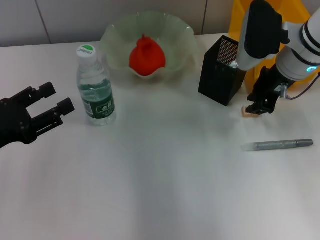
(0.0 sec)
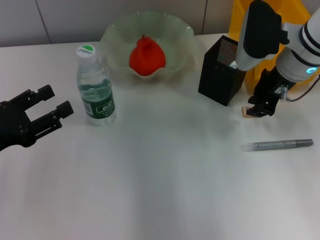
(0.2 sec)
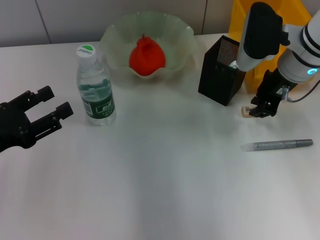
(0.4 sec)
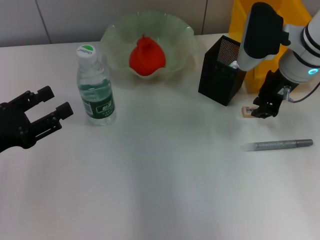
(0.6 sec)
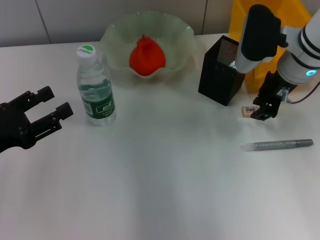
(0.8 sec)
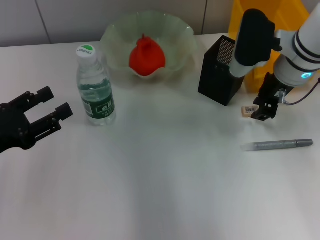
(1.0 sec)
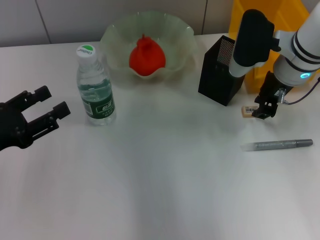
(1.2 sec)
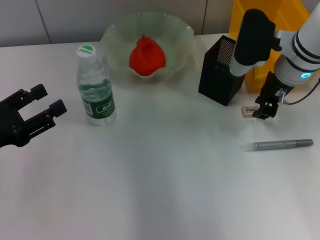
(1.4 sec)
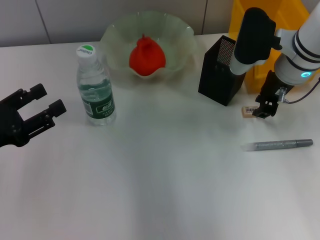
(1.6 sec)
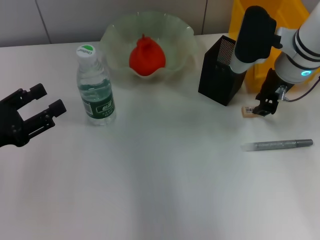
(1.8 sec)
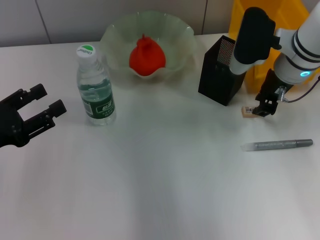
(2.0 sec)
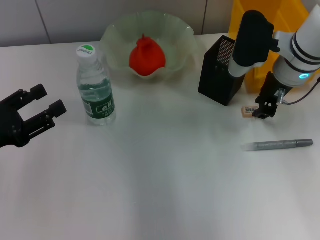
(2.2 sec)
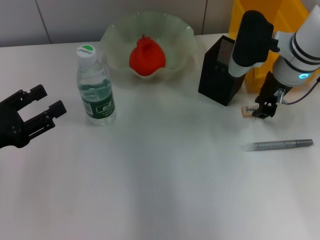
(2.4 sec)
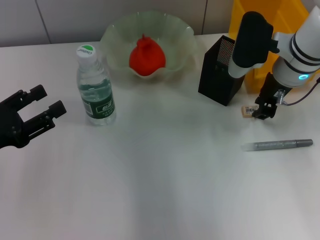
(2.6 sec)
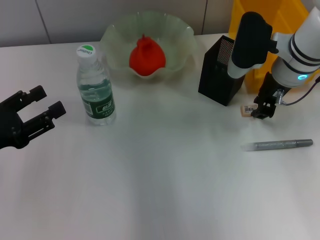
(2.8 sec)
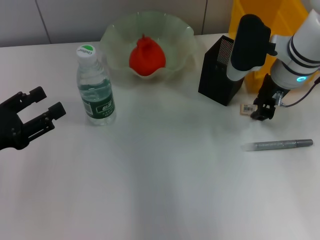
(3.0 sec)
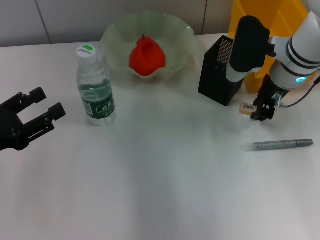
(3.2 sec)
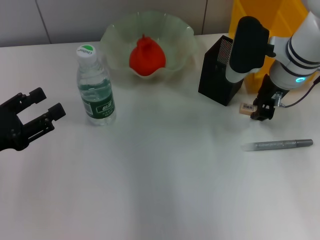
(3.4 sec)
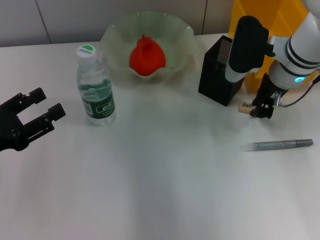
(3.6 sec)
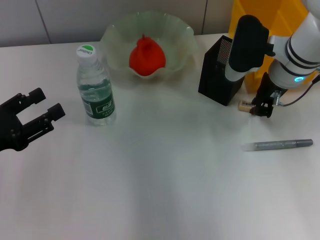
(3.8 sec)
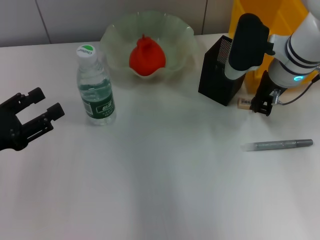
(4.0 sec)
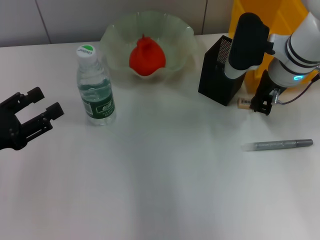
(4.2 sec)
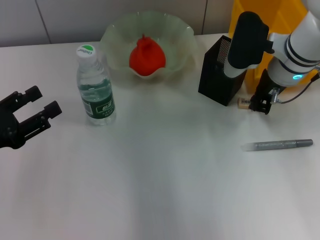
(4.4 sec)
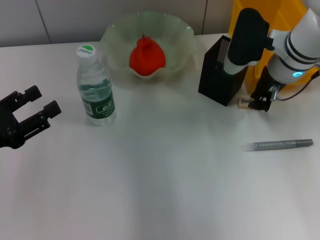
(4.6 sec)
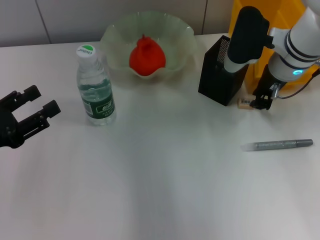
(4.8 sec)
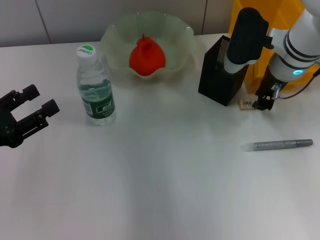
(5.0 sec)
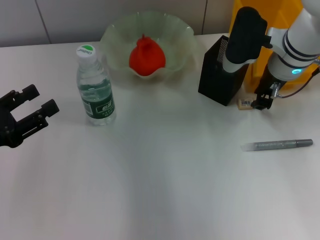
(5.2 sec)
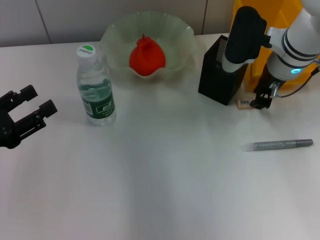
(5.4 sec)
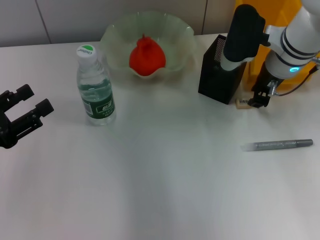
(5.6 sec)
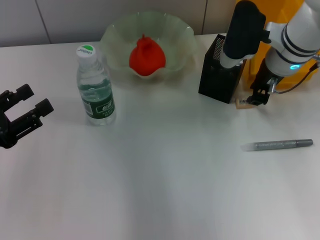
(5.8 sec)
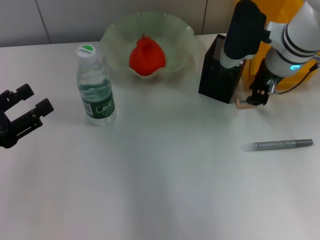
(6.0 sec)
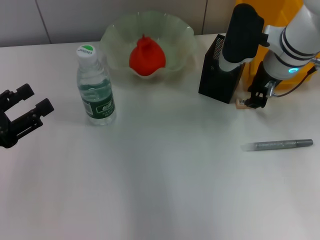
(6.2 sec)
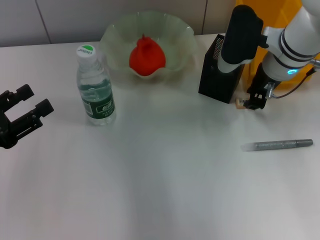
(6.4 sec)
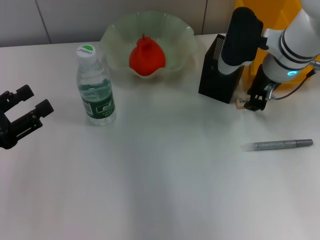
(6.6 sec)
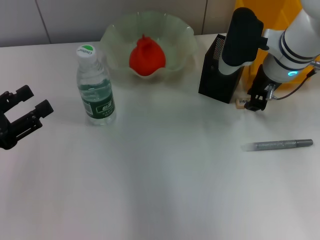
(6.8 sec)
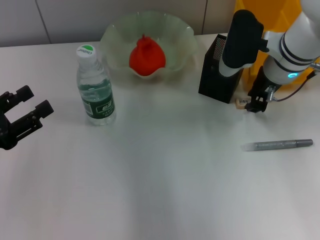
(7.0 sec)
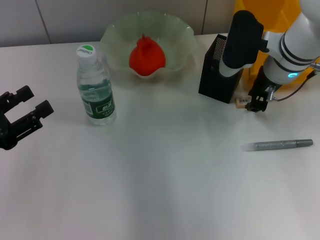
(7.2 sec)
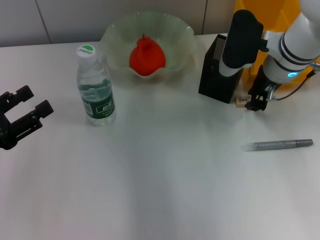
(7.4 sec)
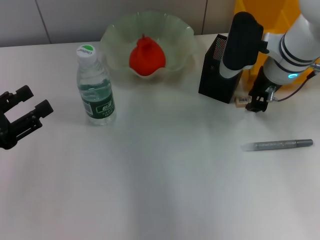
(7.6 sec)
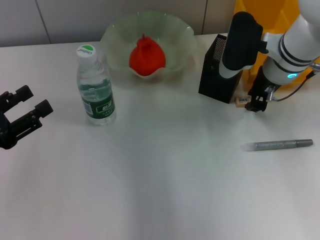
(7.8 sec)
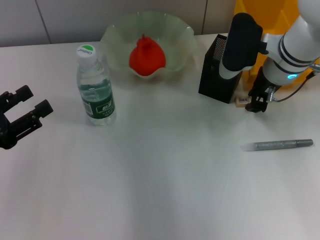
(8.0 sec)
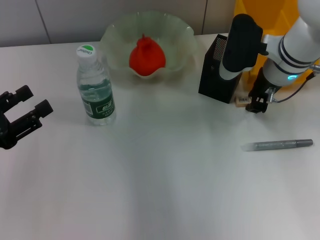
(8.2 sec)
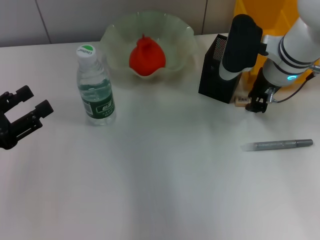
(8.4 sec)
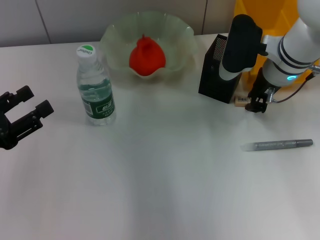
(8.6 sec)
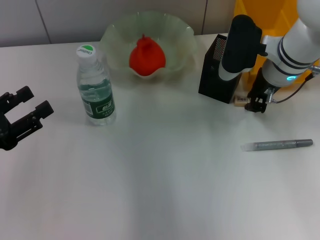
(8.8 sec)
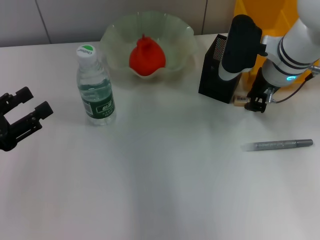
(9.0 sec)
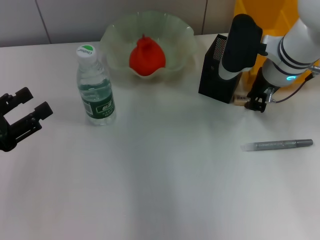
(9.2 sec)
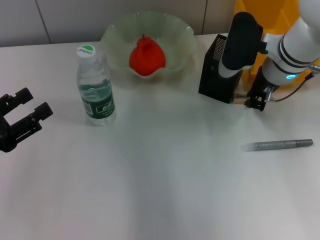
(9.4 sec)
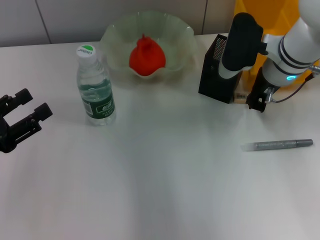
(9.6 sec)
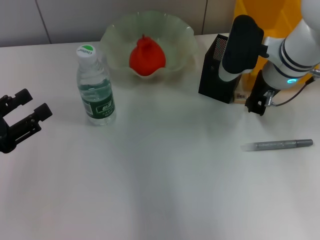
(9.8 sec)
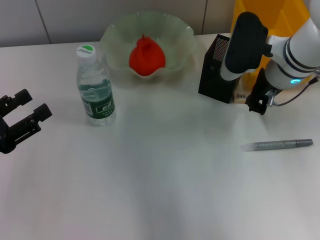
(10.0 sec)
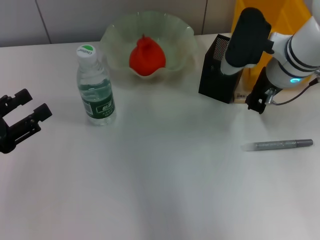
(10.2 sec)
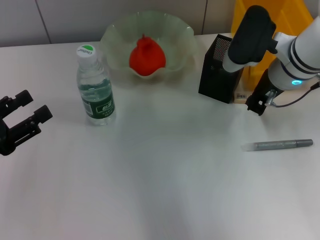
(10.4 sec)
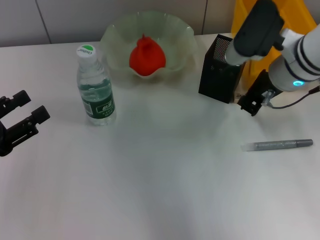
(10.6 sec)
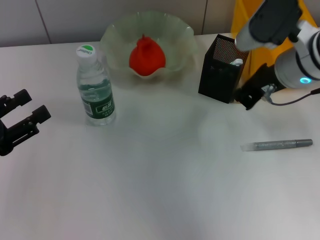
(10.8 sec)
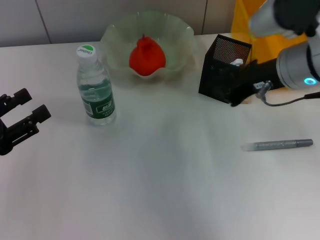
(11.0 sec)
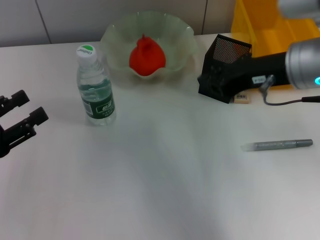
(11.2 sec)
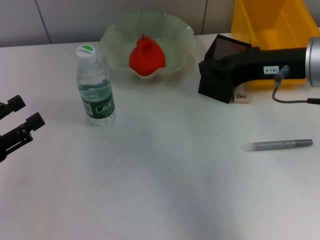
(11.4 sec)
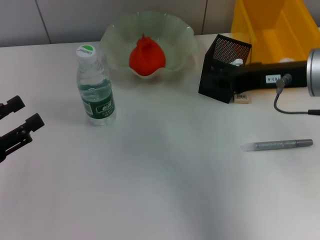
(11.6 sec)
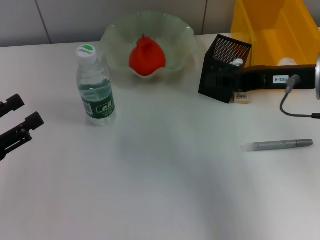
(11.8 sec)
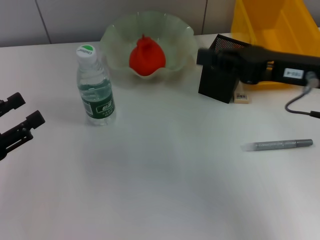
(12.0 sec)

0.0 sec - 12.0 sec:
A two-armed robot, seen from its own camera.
0.0 sec - 1.6 sec: The grippers stay close to where they were, moving slightly.
1.6 sec - 4.4 sec: Both grippers stay about where they are.
4.4 sec - 6.0 sec: The right gripper opens.
6.0 sec - 7.6 sec: The grippers make only small movements.
7.6 sec - 9.0 sec: Both grippers stay about where they are.
9.0 sec - 10.4 sec: There are only small adjustments of the grippers.
10.4 sec - 12.0 sec: The right gripper heads backward and upward, covering roughly 10 cm.

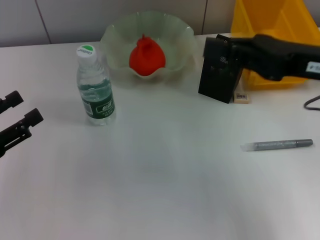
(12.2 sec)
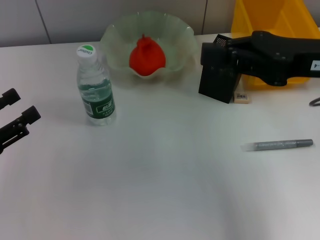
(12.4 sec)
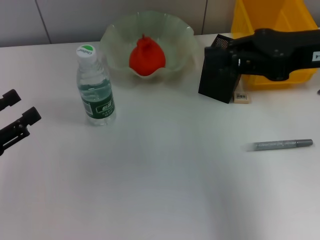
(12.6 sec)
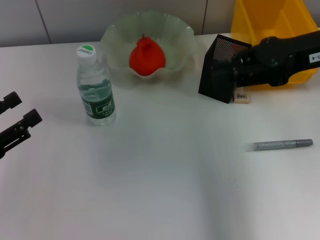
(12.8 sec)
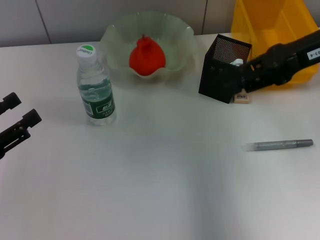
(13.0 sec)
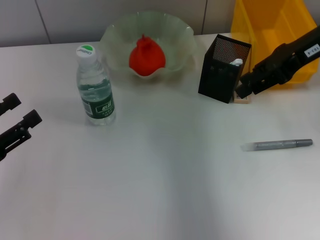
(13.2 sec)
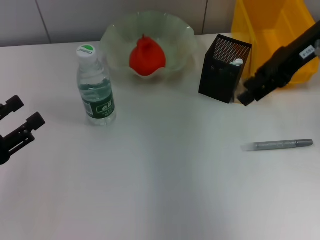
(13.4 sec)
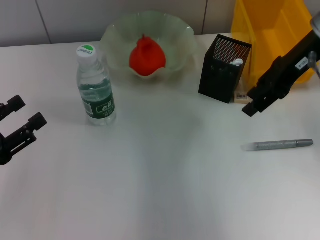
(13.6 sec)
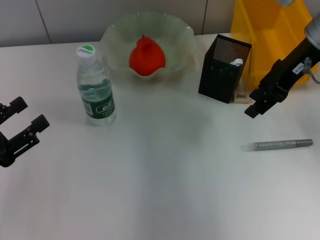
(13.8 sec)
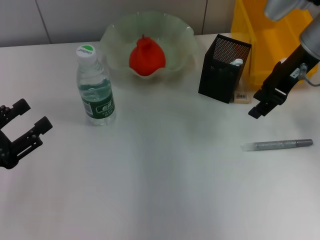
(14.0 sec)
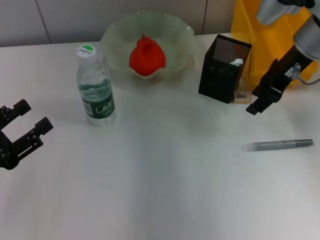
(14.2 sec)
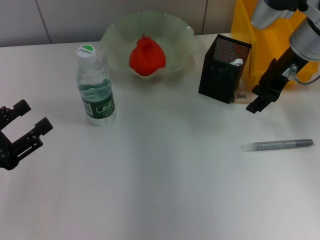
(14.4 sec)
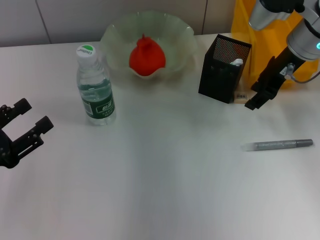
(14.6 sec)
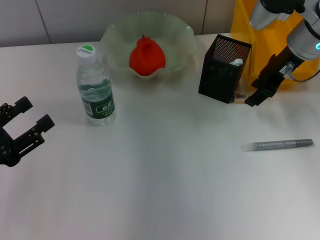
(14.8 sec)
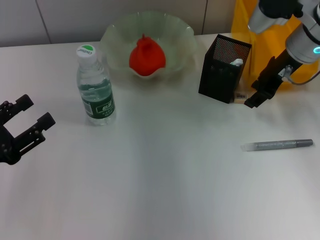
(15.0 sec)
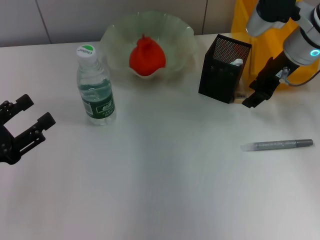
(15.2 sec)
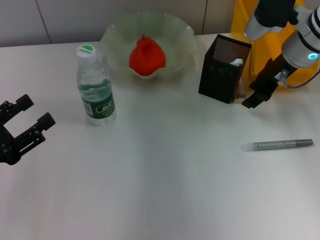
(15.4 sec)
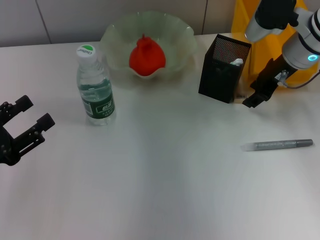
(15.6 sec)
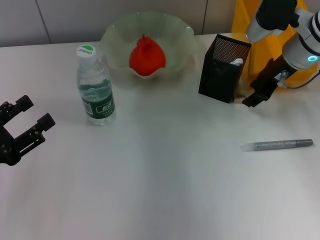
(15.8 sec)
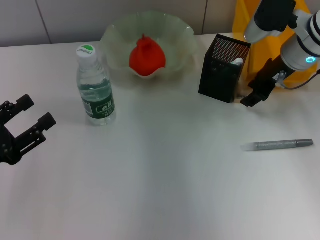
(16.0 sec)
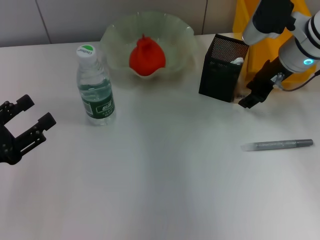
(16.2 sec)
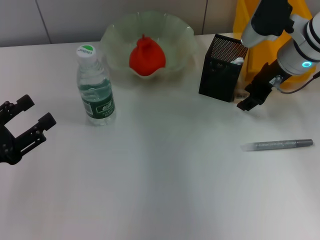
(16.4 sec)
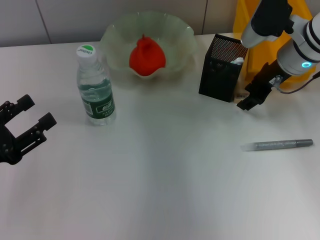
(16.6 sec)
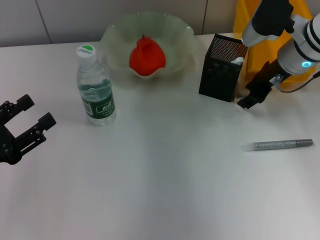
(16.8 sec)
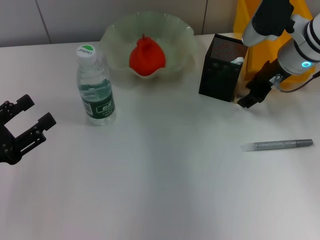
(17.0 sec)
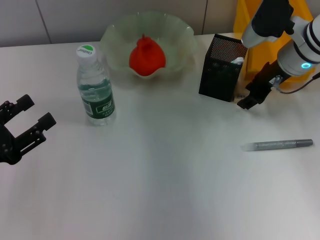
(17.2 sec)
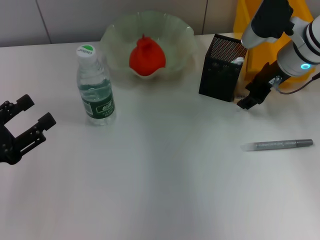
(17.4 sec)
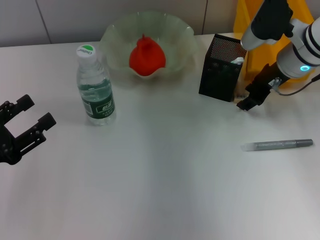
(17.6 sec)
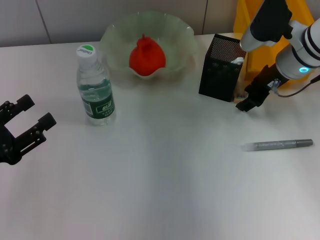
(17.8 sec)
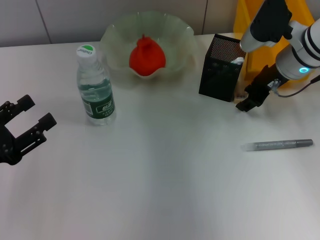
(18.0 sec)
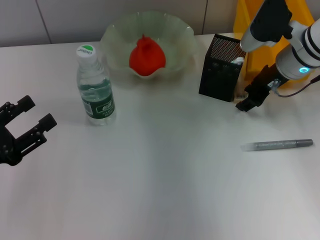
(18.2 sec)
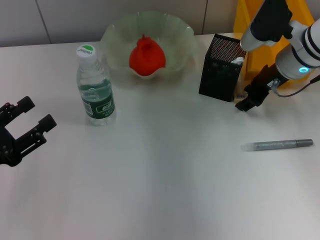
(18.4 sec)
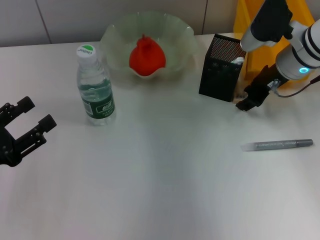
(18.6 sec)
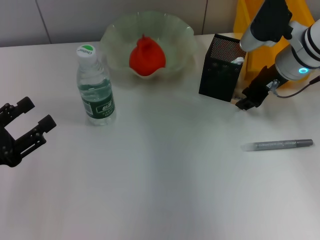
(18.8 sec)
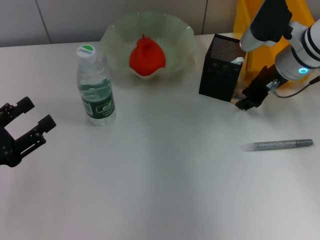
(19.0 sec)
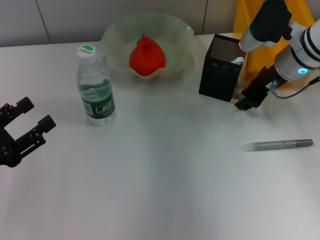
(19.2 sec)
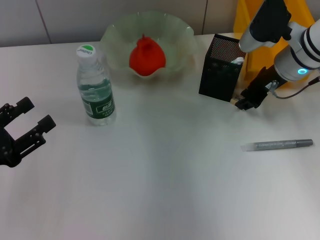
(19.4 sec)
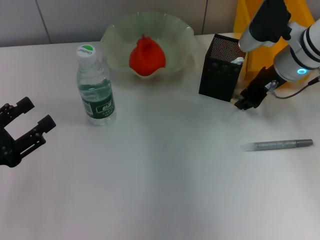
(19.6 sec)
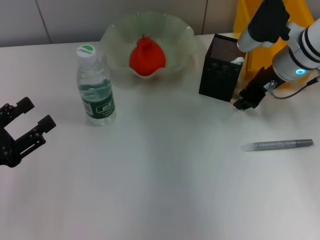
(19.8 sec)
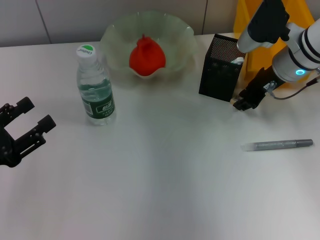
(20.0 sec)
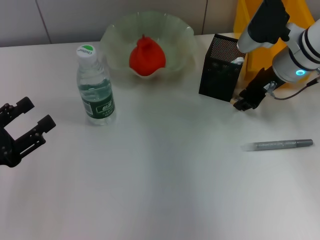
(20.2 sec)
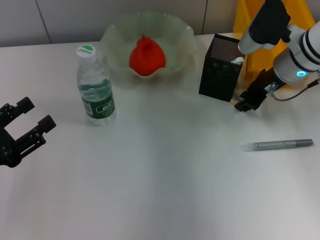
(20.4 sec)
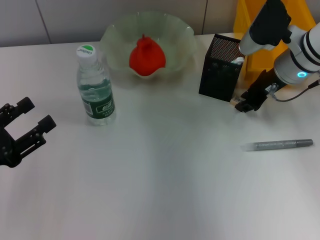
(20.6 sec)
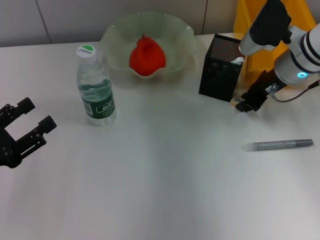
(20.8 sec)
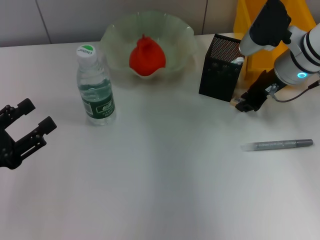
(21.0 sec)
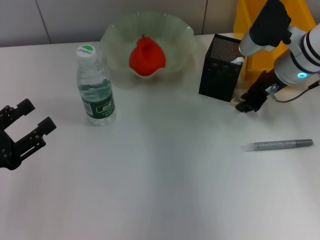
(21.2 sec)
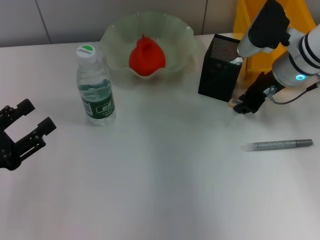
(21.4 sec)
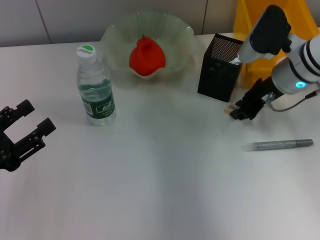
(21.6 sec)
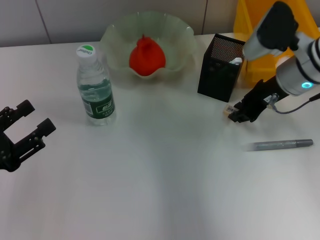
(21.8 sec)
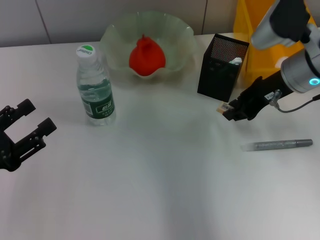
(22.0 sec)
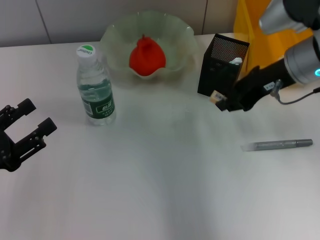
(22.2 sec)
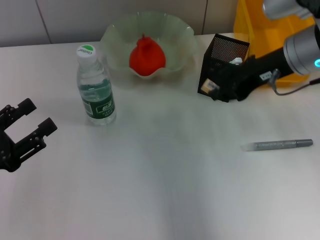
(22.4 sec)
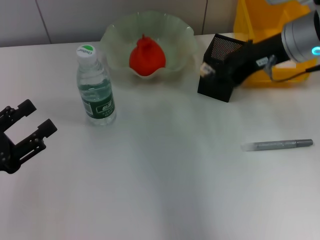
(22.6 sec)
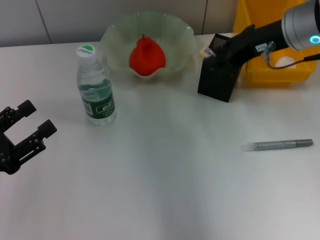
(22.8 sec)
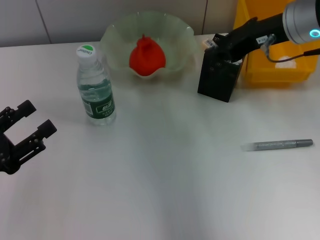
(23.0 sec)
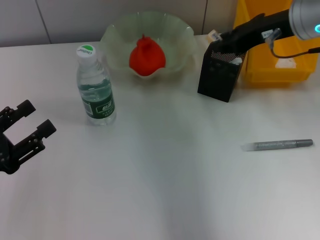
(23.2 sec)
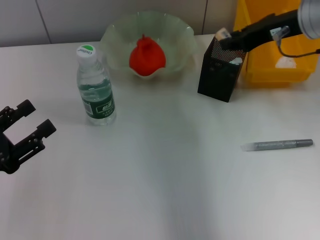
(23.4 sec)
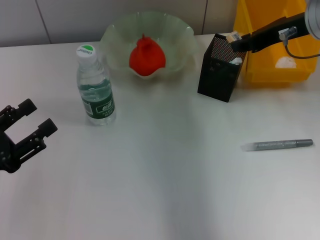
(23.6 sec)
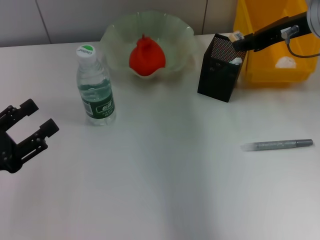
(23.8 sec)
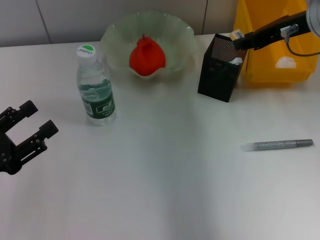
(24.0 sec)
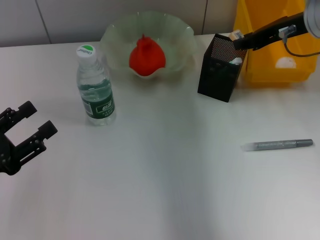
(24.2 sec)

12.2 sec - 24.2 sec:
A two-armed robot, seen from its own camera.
Step, 12.2 sec - 21.4 sec: Grab the eraser with the right hand.
12.2 sec - 13.8 sec: The right gripper moves forward, about 15 cm, and opens up.
13.8 sec - 15.2 sec: The right gripper shifts roughly 5 cm downward.
15.2 sec - 16.6 sec: The grippers make only small movements.
16.6 sec - 19.8 sec: The two grippers keep their place.
19.8 sec - 21.2 sec: Both grippers stay about where they are.
21.2 sec - 22.6 sec: The right gripper goes some 10 cm upward.
